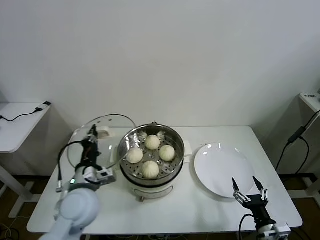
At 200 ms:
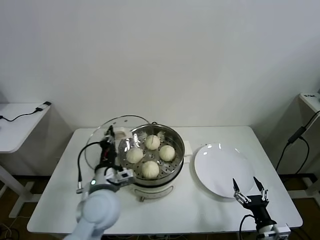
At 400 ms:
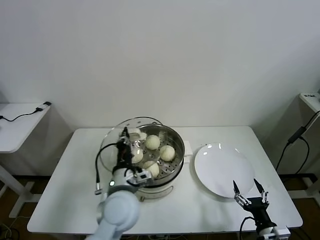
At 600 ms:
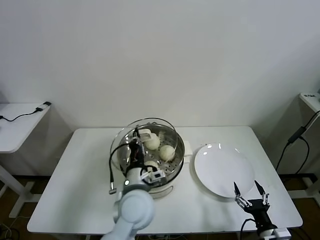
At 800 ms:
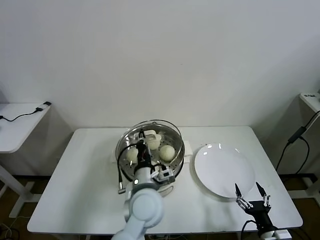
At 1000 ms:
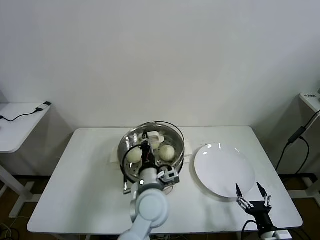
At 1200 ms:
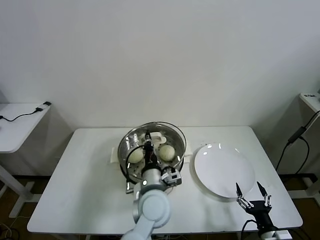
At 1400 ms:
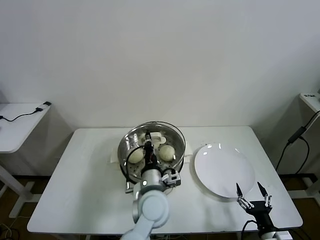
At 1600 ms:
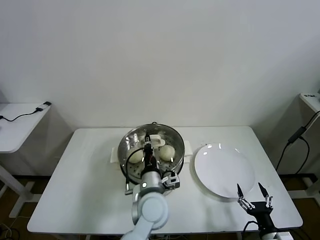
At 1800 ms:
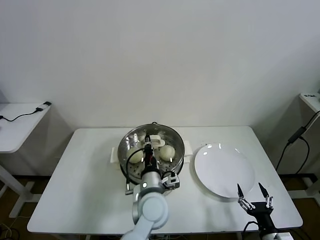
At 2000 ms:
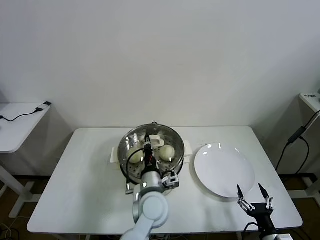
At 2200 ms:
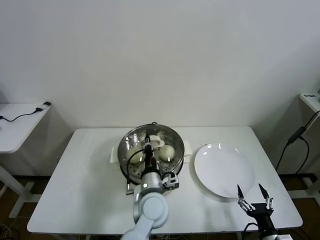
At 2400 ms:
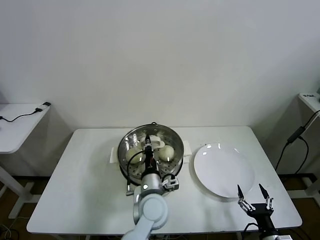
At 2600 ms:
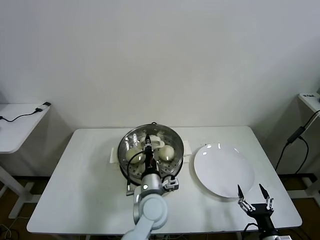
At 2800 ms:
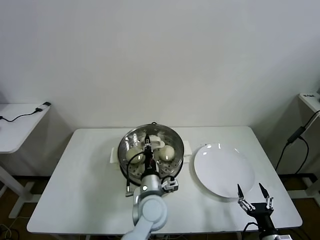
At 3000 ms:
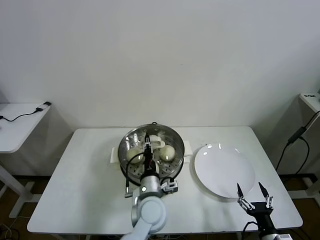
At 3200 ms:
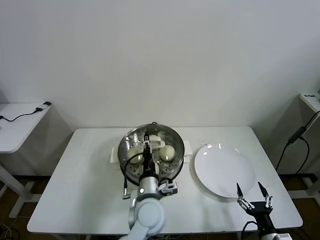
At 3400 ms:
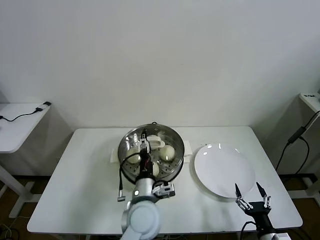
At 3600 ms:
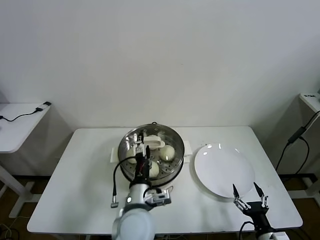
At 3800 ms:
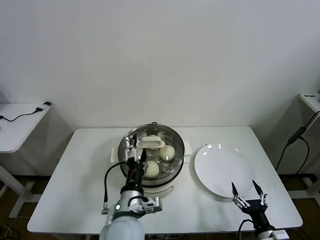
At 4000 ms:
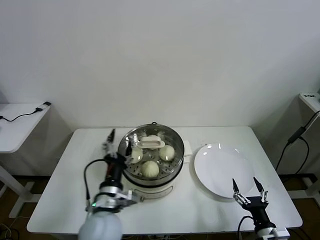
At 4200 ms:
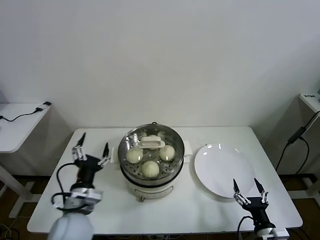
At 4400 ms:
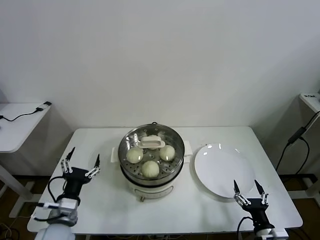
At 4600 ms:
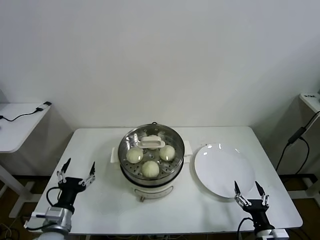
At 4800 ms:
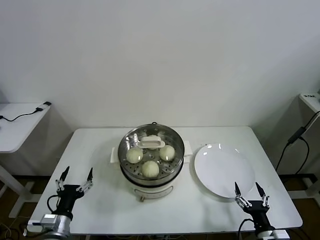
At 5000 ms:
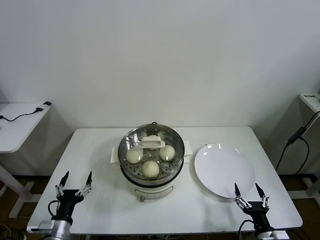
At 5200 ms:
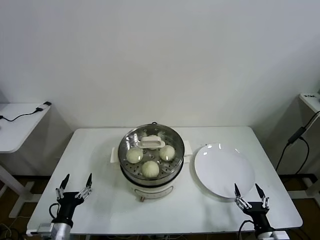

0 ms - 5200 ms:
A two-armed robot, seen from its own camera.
Task of the whole recording: take steamed baozi put them in steamer then cover it.
Step, 0 ms - 3000 ms: Place the pot lid on the steamer with left gripper.
0 ms - 1800 ms: The left gripper heads to the right, covering some 20 cm.
1800 ms - 3400 ms: The left gripper opens up.
3400 ms - 5200 ms: The left gripper travels to the left by roughly 30 cm.
